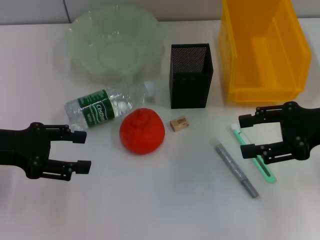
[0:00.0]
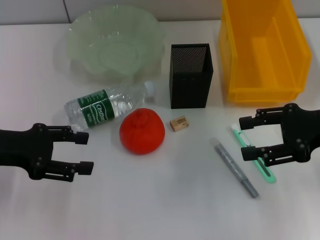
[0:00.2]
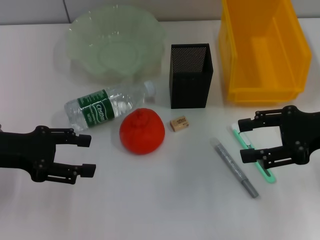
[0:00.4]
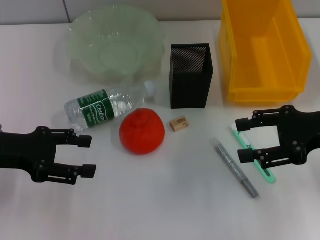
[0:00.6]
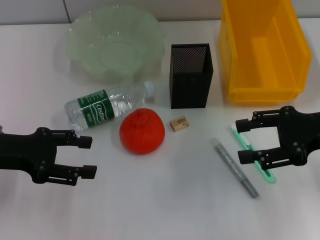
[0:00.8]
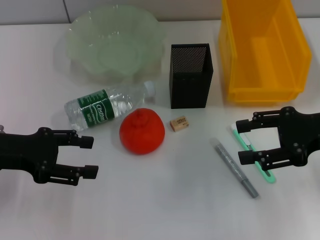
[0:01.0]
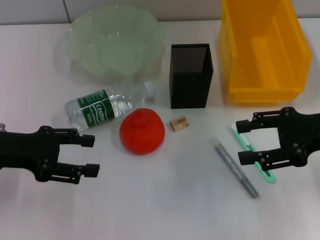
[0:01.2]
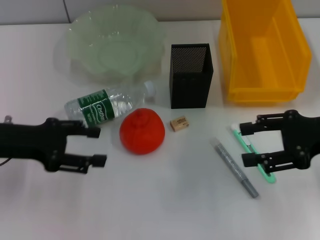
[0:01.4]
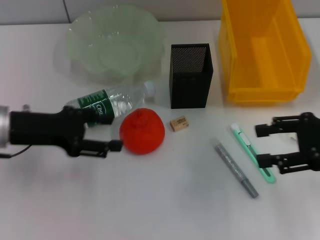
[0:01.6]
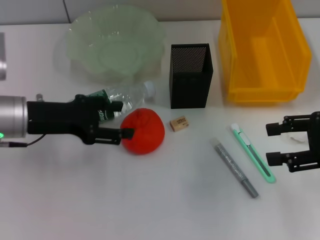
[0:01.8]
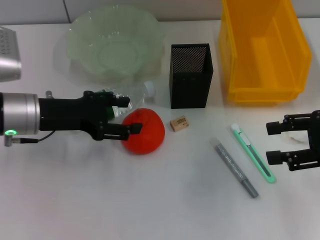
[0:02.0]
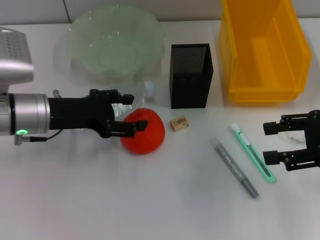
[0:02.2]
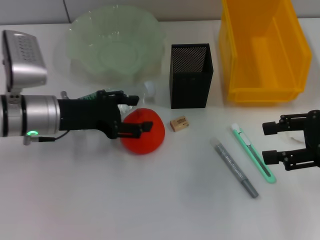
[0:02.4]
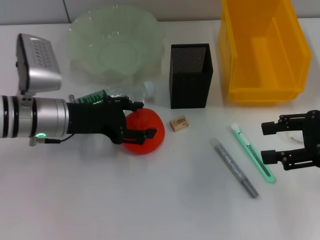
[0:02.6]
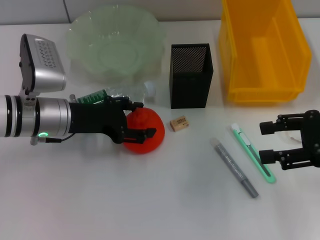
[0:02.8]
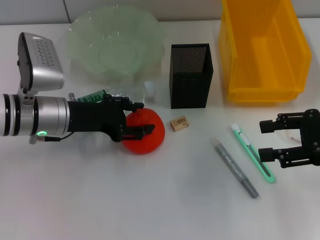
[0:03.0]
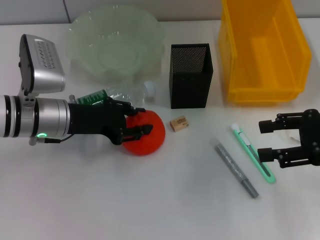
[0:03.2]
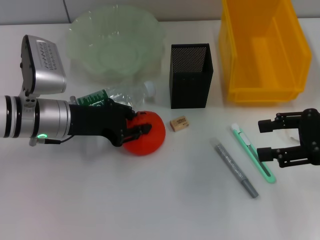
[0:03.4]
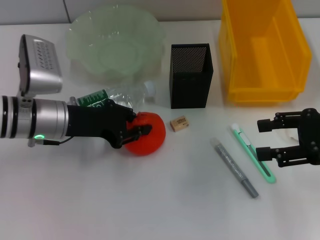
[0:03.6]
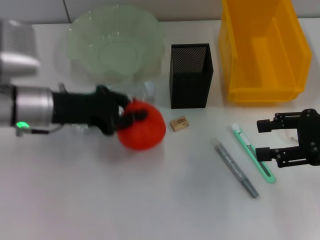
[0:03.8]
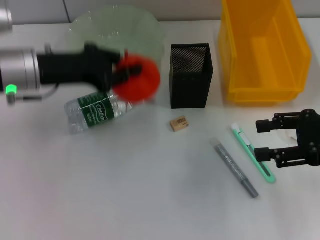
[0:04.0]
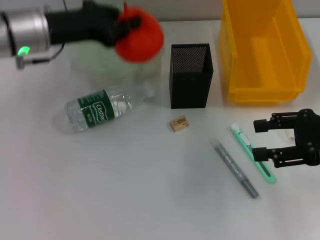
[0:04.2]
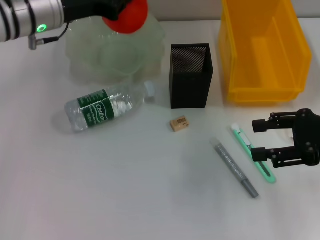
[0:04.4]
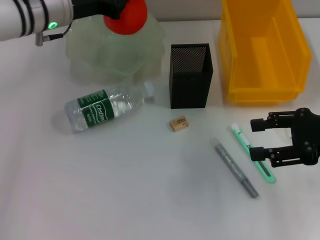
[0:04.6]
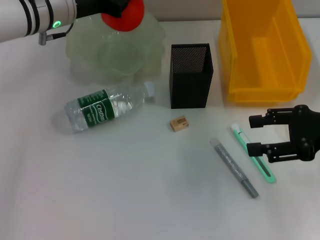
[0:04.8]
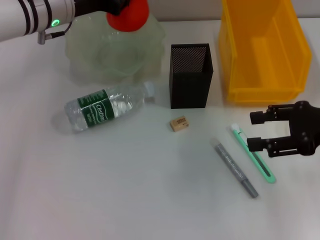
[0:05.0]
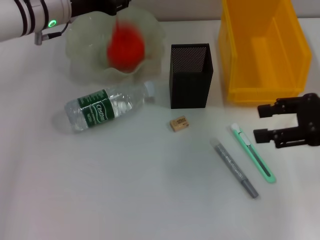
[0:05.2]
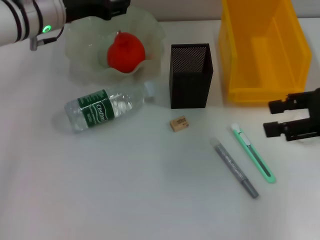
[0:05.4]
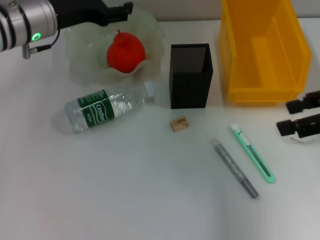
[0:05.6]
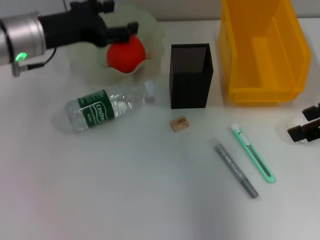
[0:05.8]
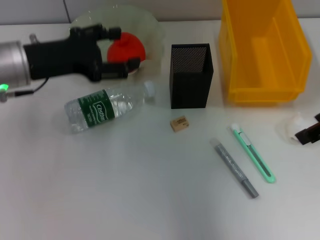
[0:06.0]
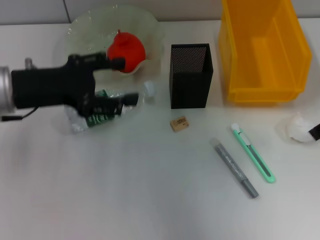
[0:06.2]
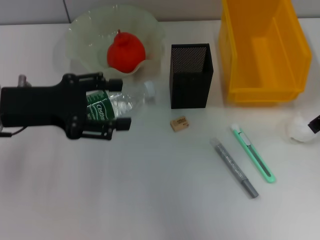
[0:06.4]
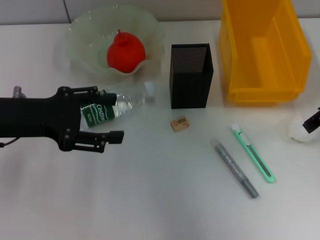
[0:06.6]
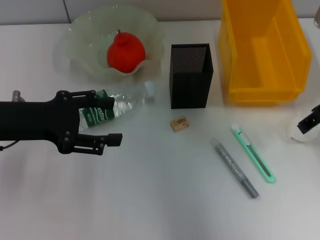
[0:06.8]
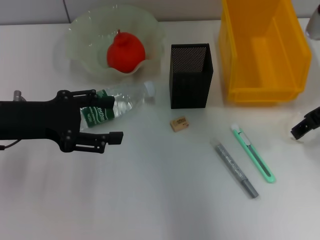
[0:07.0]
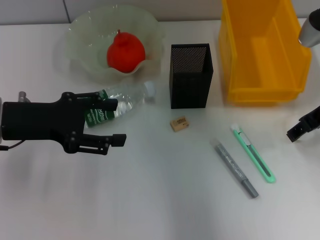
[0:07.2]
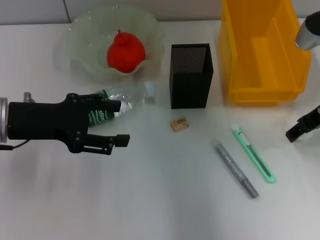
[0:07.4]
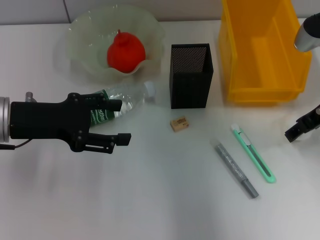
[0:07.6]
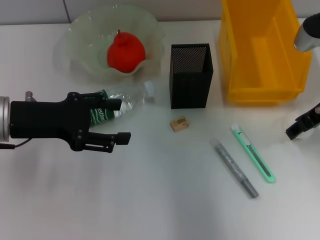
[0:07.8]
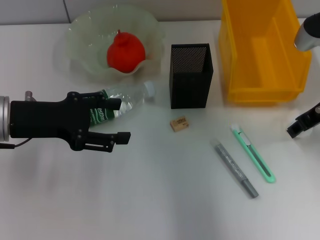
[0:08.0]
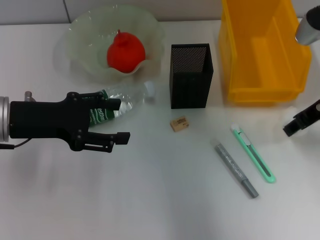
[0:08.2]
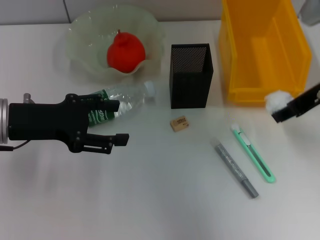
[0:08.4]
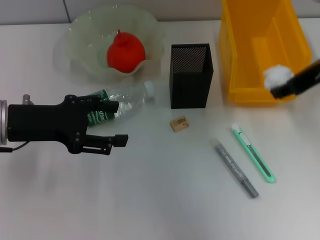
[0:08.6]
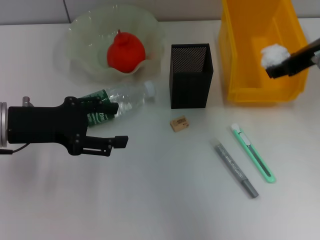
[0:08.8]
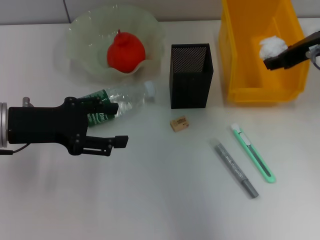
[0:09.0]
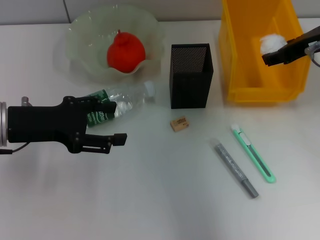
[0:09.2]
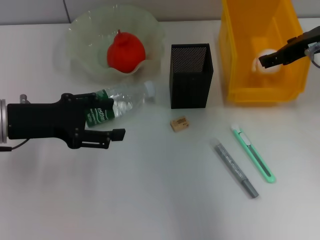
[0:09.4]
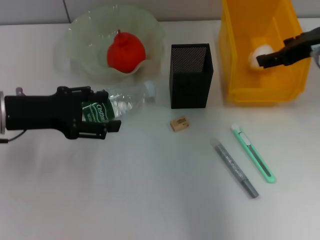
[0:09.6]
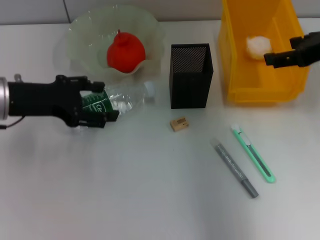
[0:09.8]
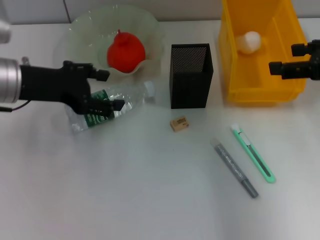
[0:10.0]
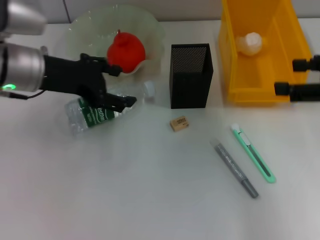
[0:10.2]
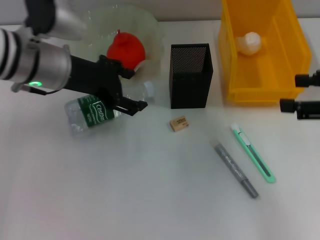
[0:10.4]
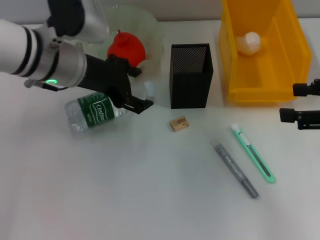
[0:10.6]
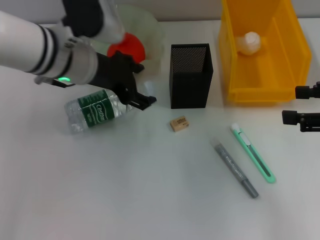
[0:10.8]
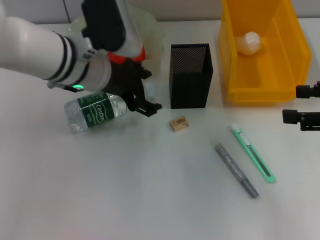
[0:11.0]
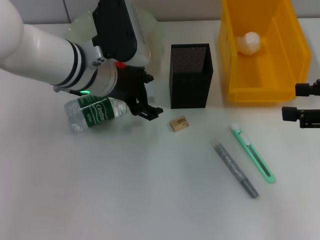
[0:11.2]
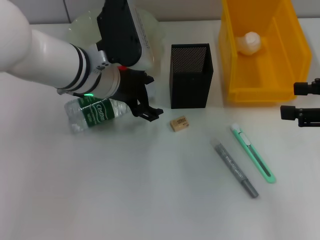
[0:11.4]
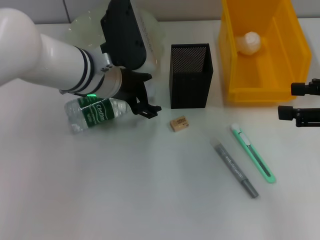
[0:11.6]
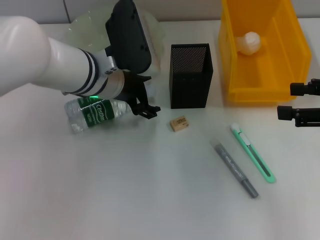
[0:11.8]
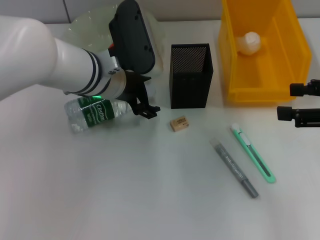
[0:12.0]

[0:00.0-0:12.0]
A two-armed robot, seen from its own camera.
Step, 0:00.0 to 0:03.4: Grab the orange with the left hand.
Step, 0:03.6 to 0:05.4: Place the orange into the fruit bowl with the left hand.
Step, 0:05.6 to 0:07.8: Grab the paper ball with the right hand.
Step, 0:08.0 to 0:10.2: Place the paper ball into the trash can with the right hand.
0:00.0 to 0:01.6: The left gripper shifts by approximately 5 cm.
0:01.6 to 0:03.0: The left gripper moves to the right, about 5 cm.
0:03.0 to 0:04.4: The left gripper goes some 15 cm upward and forward, and closes its fingers.
0:04.4 to 0:06.0: The left gripper shifts some 10 cm backward, and opens. Meanwhile the right gripper shifts about 10 cm upward.
0:06.0 to 0:07.6: The left gripper ends up about 5 cm from where it was, while the right gripper travels downward and forward by some 10 cm.
0:07.6 to 0:09.0: The right gripper is displaced upward by roughly 5 cm.
0:09.0 to 0:10.4: The left gripper moves to the right and forward, roughly 10 cm, while the right gripper travels backward and to the right by roughly 15 cm.
0:10.4 to 0:12.0: The left gripper is displaced to the right by roughly 10 cm.

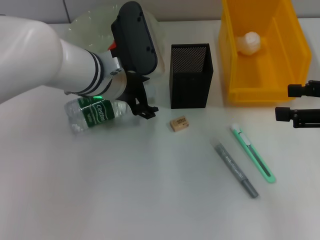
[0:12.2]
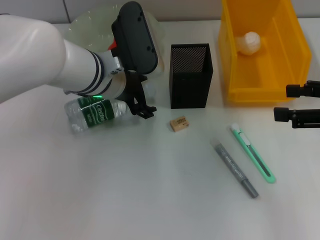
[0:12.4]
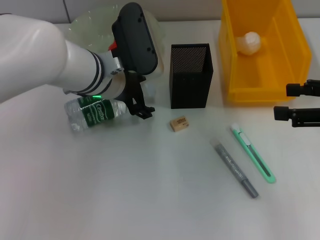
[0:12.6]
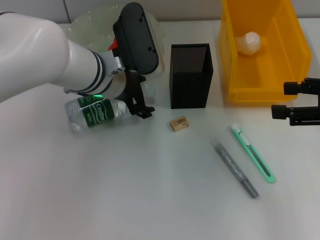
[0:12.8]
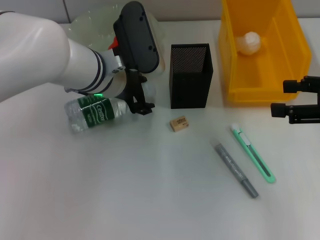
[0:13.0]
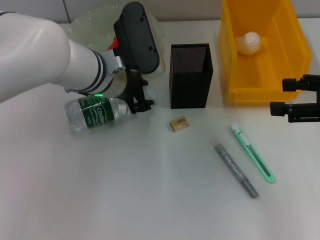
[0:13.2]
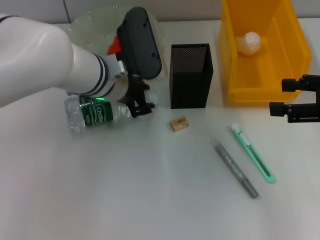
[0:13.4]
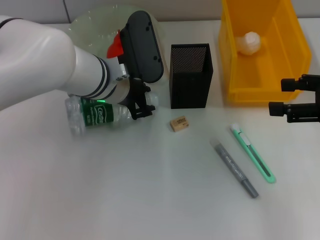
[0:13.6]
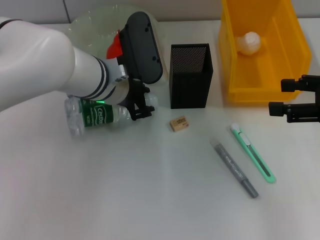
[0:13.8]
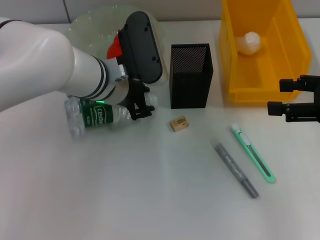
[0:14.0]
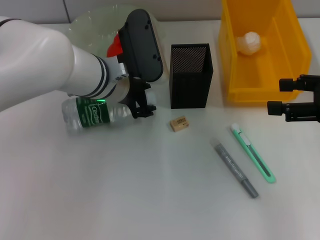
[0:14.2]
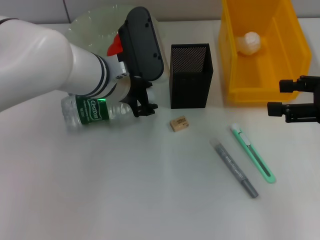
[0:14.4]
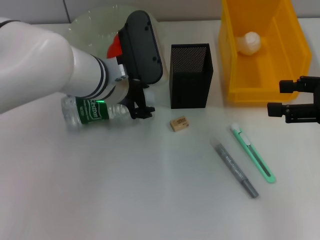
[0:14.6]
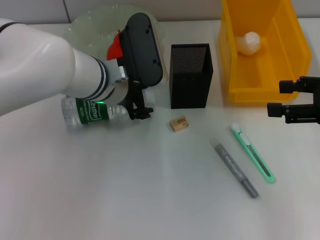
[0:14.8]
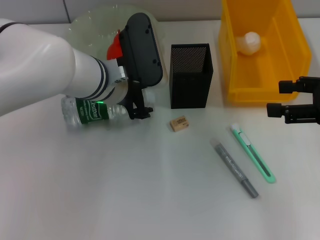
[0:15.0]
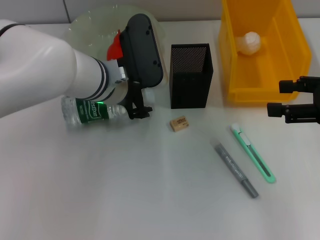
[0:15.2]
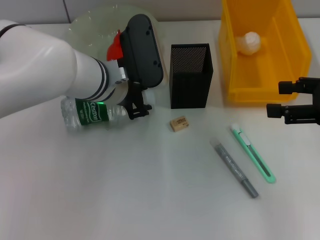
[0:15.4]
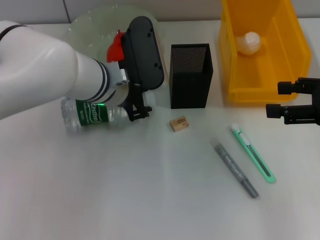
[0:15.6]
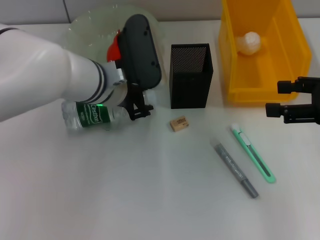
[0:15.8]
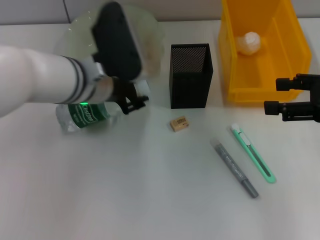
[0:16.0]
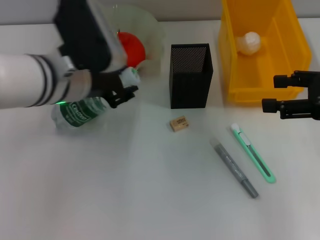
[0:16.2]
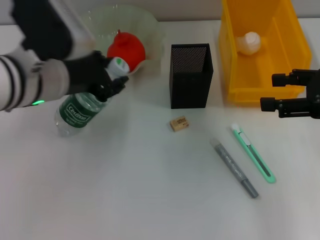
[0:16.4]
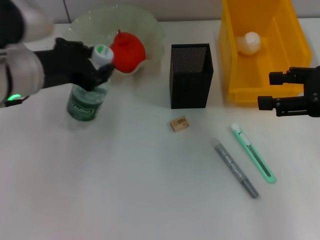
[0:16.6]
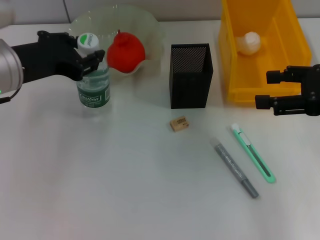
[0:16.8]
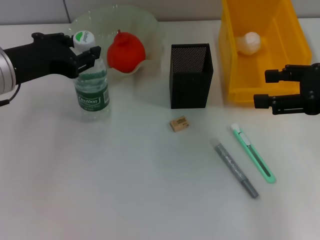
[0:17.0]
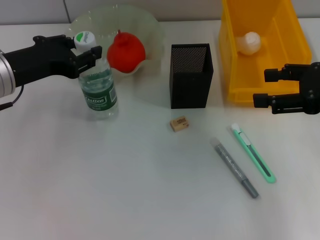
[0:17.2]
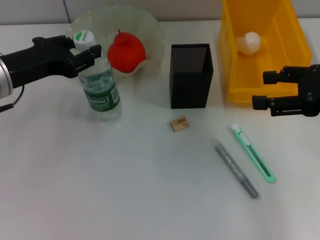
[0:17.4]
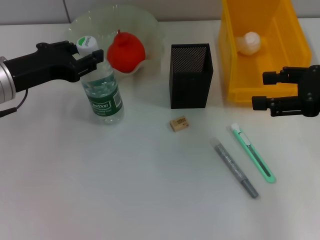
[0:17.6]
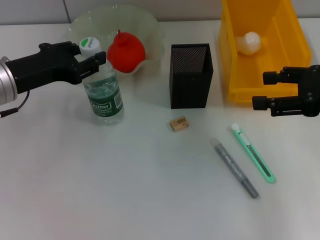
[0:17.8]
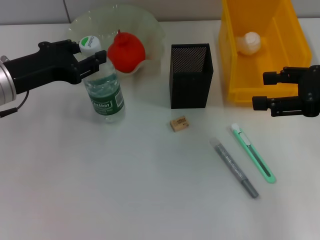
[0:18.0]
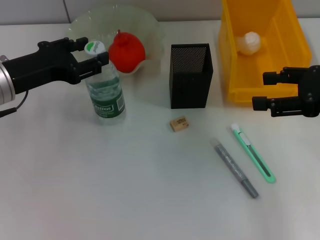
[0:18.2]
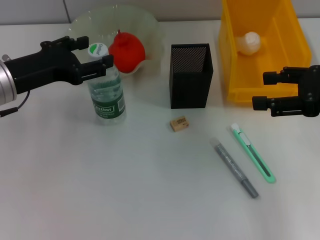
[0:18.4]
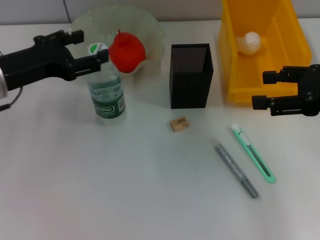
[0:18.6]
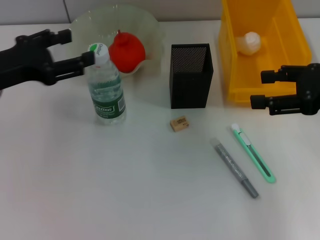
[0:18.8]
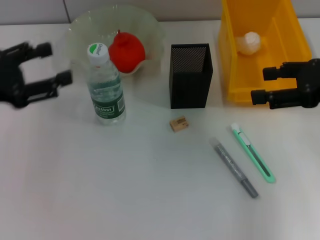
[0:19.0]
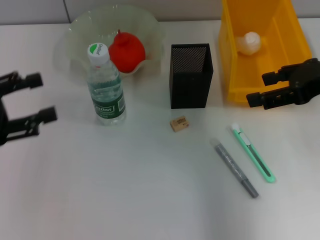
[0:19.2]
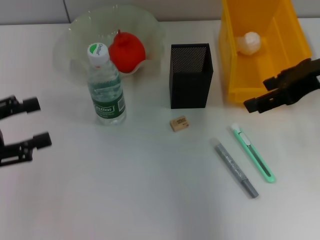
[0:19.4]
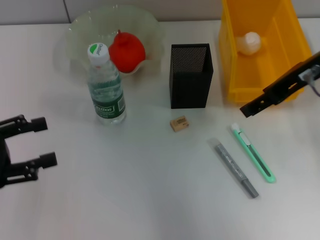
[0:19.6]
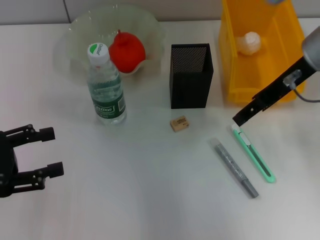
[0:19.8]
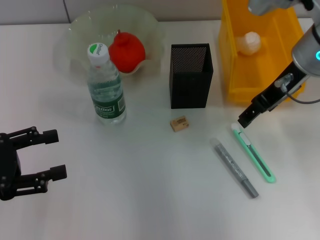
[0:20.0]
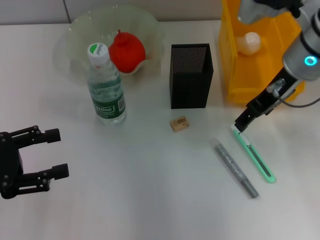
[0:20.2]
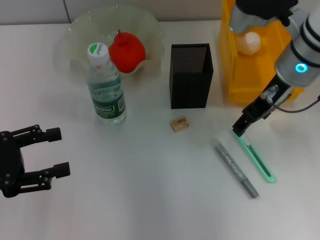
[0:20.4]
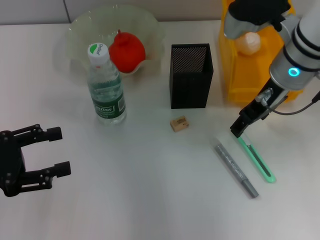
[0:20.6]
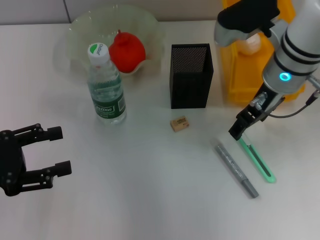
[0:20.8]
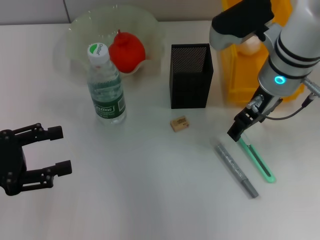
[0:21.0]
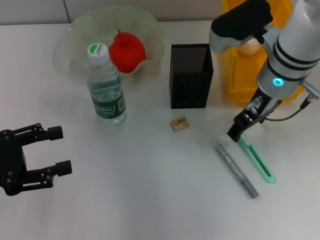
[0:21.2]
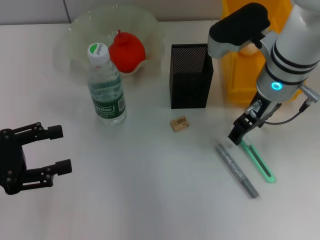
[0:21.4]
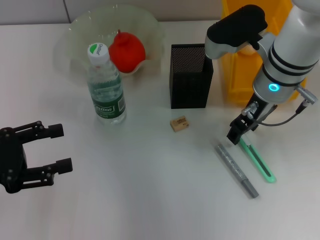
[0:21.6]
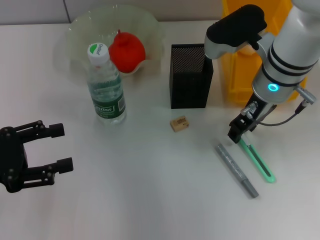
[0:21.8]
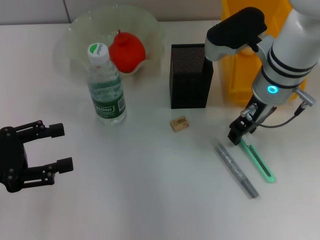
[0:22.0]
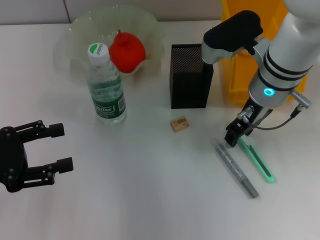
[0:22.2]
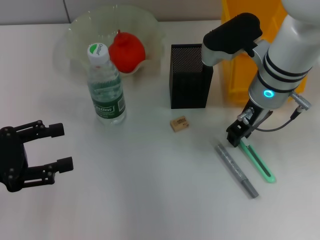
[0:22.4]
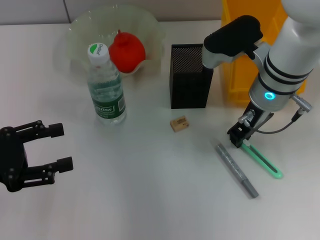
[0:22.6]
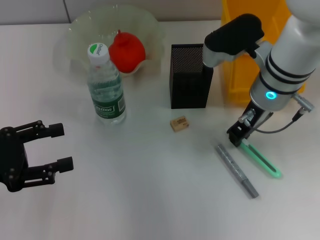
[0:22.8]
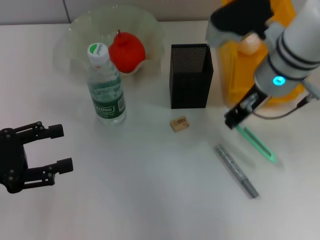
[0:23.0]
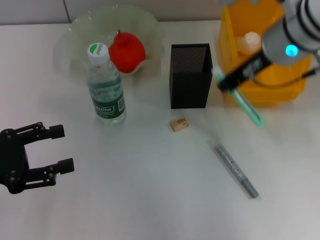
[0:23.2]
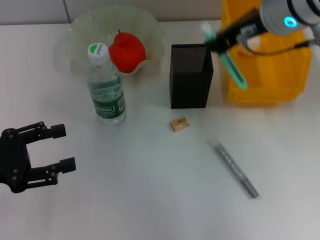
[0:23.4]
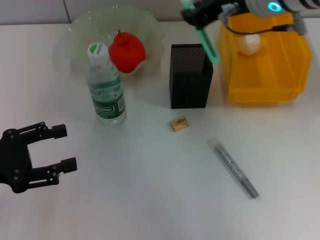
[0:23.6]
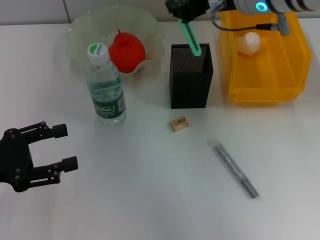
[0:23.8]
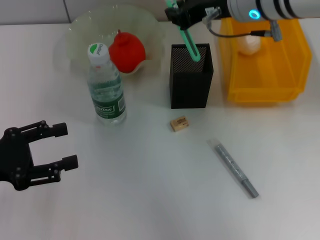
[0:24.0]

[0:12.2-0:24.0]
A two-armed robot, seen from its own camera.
Step, 0:12.2 to 0:15.6: Grab the water bottle with the left hand.
Step, 0:15.8 to 0:18.2: Place the water bottle on the table with the left hand.
Step, 0:18.4 to 0:22.4: Grab the blue utility knife with the right hand.
0:12.2 to 0:13.6: The left gripper closes.
0:13.6 to 0:15.2: Both grippers stay put.
0:15.2 to 0:16.6: The left gripper goes roughly 15 cm to the left, upward and backward.
0:16.6 to 0:18.2: The left gripper travels to the left by some 5 cm.
0:18.2 to 0:19.6: The right gripper moves to the left and forward, approximately 10 cm. The left gripper shifts about 15 cm backward and to the left.
0:19.6 to 0:21.0: The right gripper goes about 10 cm downward and to the left.
0:21.0 to 0:22.6: The right gripper closes.
0:22.6 to 0:24.0: The right gripper goes roughly 10 cm upward.
